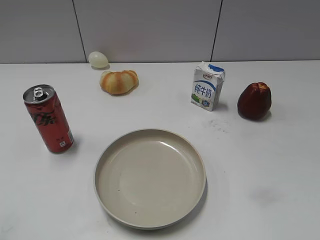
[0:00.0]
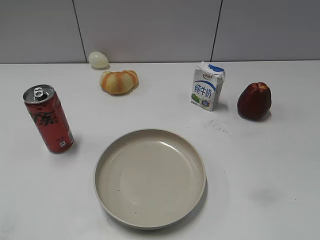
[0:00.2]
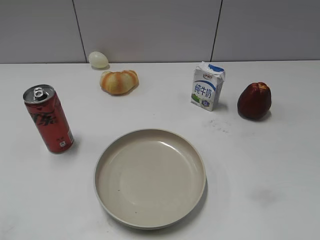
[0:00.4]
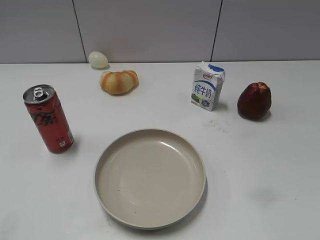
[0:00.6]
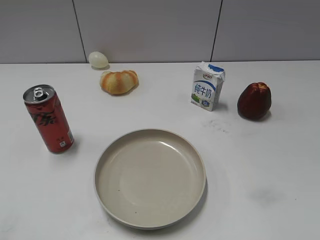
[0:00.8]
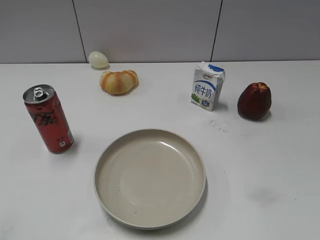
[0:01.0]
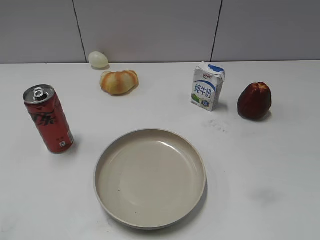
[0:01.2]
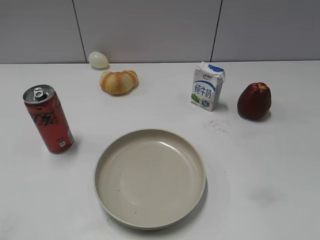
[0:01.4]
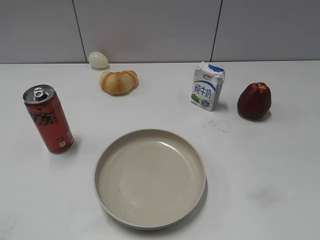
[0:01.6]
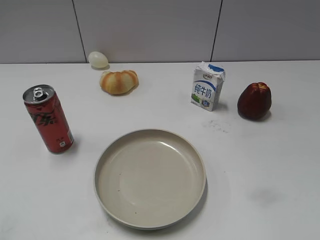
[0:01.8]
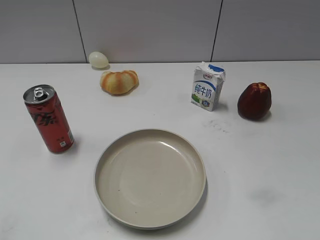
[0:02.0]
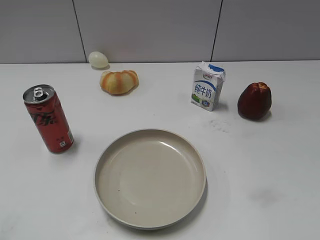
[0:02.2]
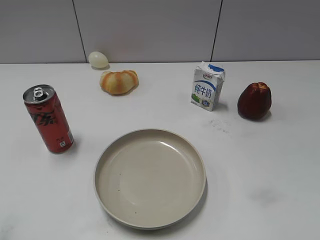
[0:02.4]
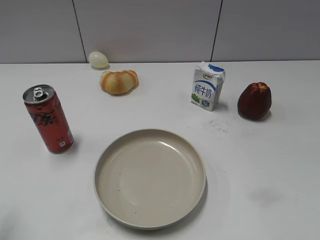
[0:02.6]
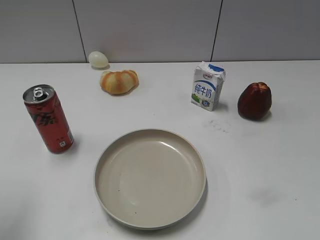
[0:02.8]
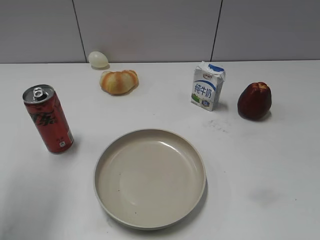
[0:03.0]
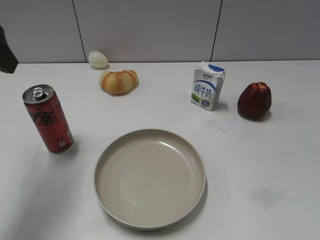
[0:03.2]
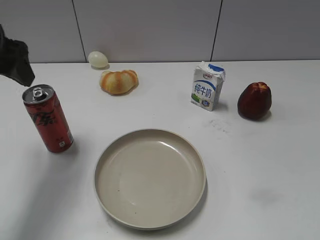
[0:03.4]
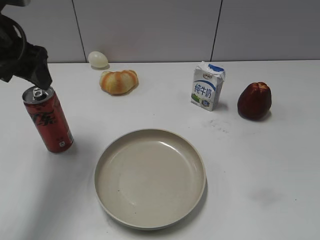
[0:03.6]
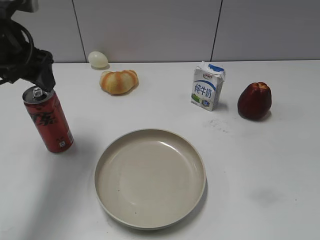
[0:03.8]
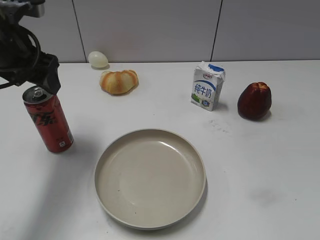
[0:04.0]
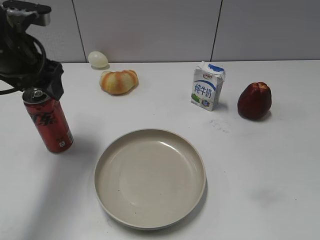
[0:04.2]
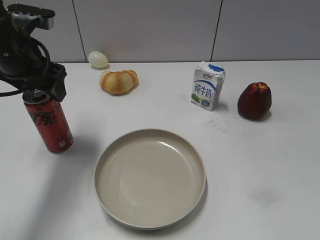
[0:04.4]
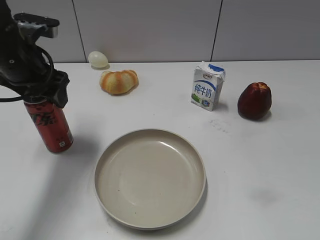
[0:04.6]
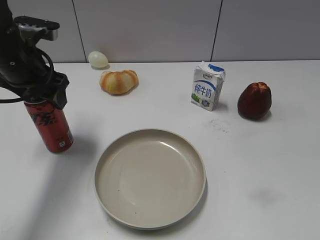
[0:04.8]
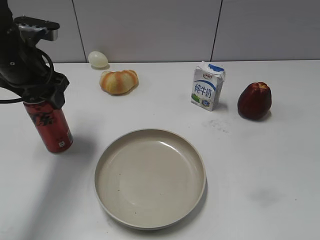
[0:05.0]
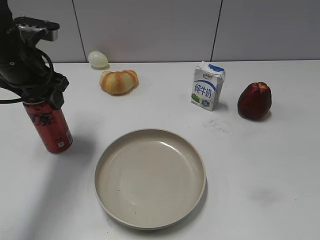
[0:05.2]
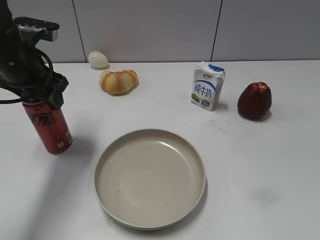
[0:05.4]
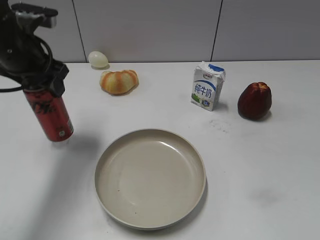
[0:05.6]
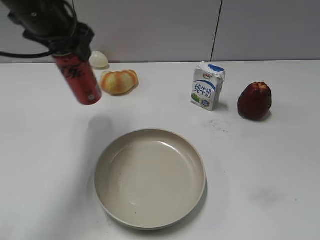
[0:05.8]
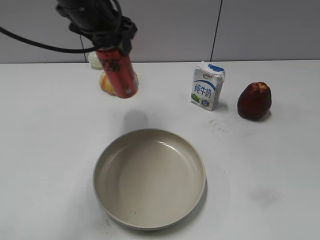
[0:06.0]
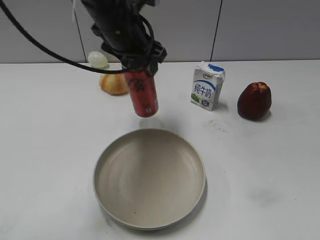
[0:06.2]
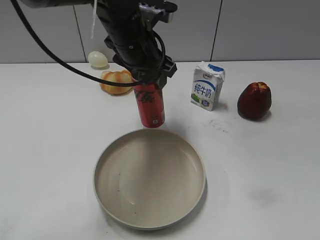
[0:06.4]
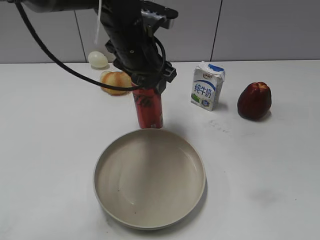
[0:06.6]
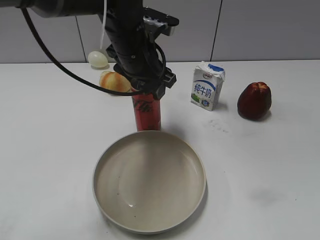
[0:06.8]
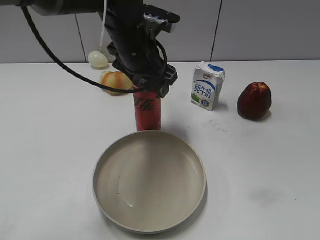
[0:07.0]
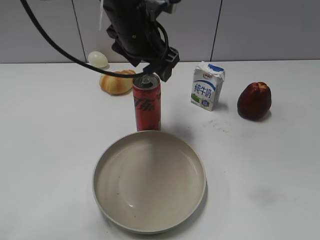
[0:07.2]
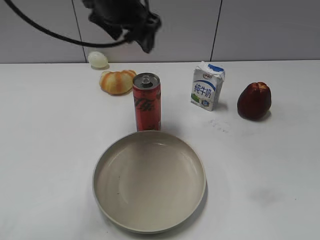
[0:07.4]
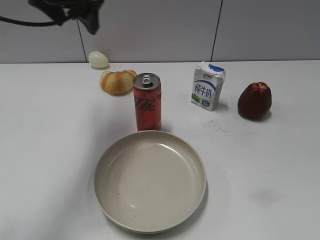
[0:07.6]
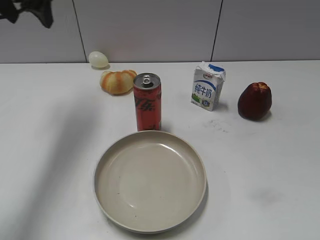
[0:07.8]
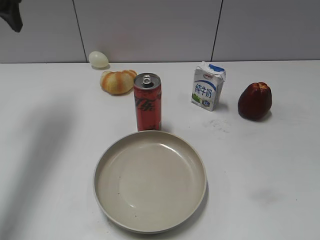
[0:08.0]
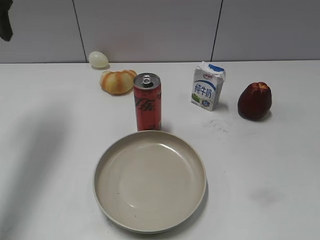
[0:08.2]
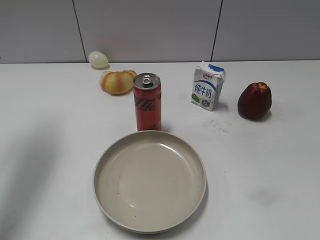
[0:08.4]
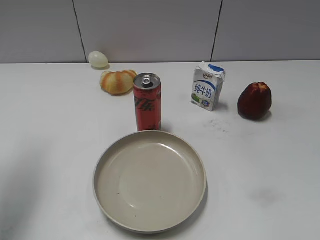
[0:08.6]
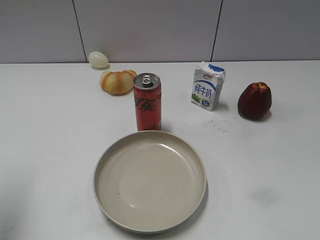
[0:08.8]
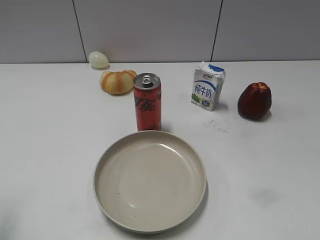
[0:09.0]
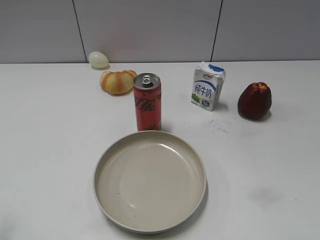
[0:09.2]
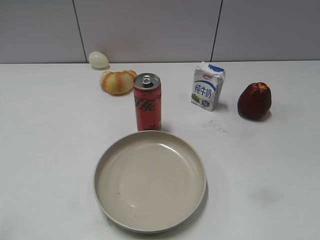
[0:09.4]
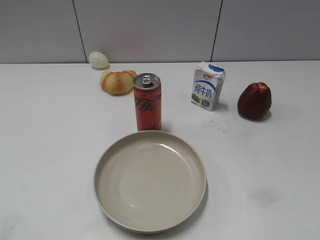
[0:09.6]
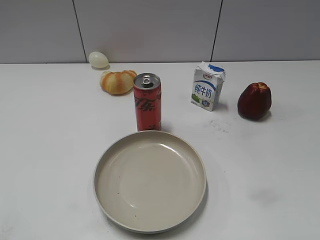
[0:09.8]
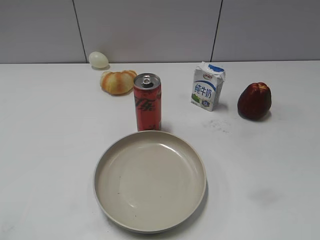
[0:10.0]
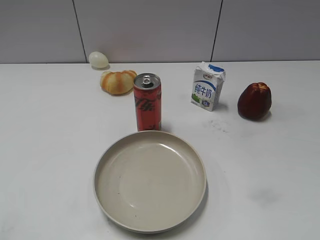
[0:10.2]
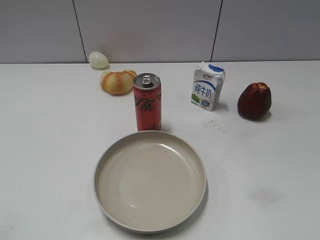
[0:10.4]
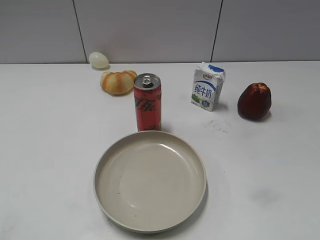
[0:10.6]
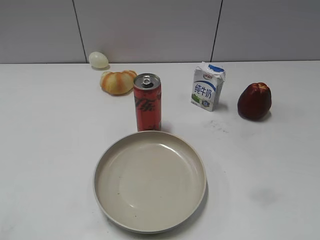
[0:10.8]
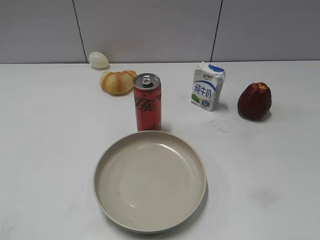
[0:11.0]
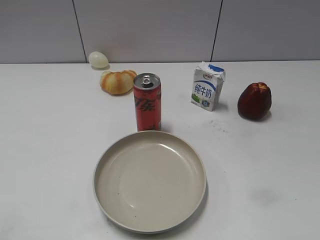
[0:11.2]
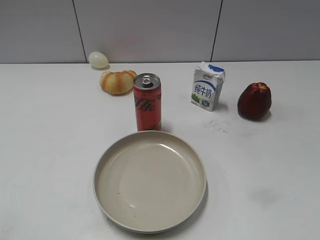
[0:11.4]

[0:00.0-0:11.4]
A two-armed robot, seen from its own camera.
Step, 0:01.0 to 0:05.4: Grasp the cola with left gripper.
Step, 0:05.6 to 0:07.2: Place the cola on the table with left gripper.
0:01.4 to 0:02.8: The left gripper moves forward, about 15 cm, and opens up.
0:02.8 to 0:04.2: The left gripper travels forward, to the right and downward by about 20 cm.
0:04.2 to 0:05.6: The left gripper closes.
0:05.6 to 0:07.2: The left gripper heads to the right, covering some 20 cm, and opens up.
0:07.2 to 0:08.6: The left gripper is displaced to the left and backward by about 30 cm, and closes up.
0:08.6 to 0:10.0: The left gripper goes roughly 25 cm backward.
0:10.0 to 0:11.4: Both grippers stay about where they are.
